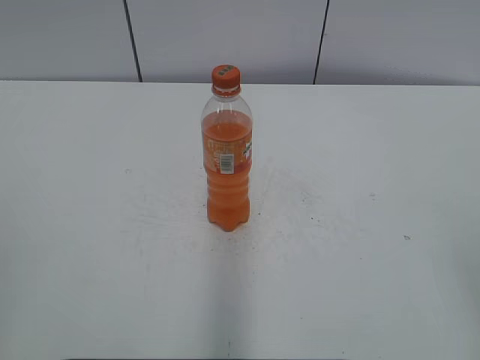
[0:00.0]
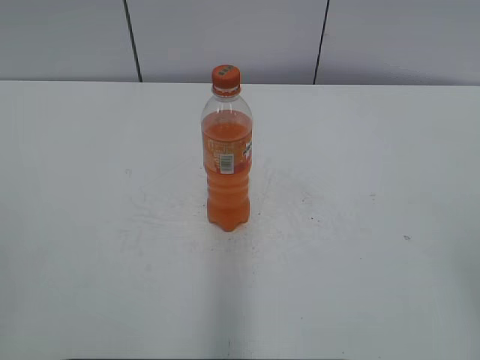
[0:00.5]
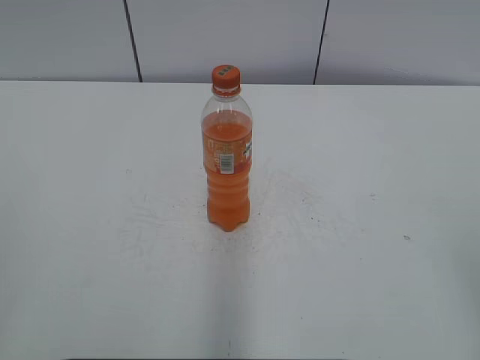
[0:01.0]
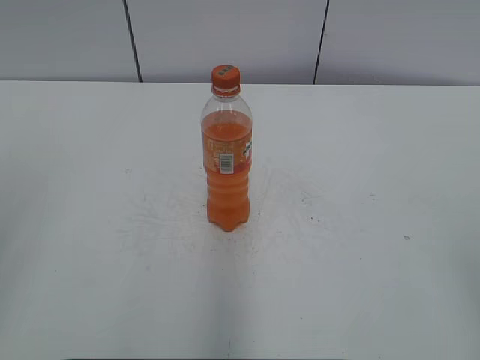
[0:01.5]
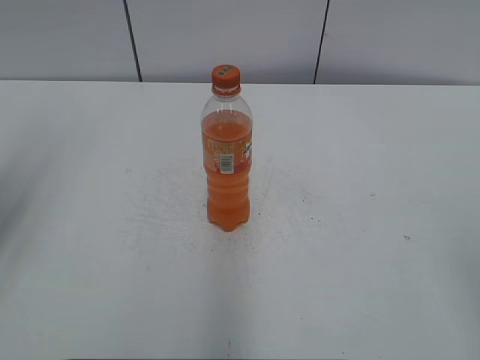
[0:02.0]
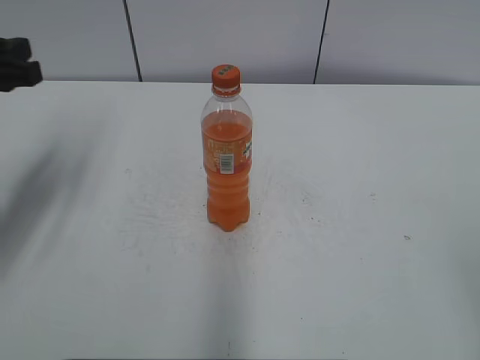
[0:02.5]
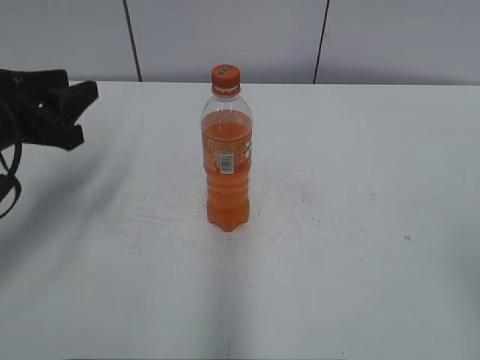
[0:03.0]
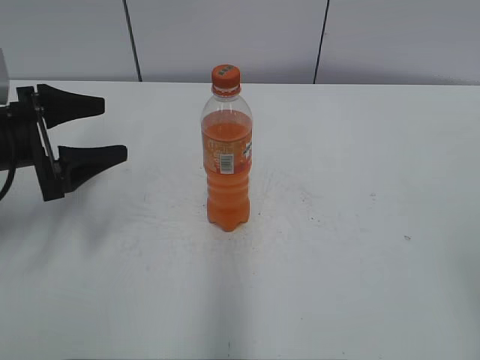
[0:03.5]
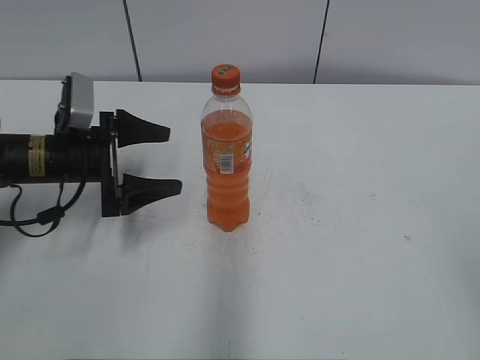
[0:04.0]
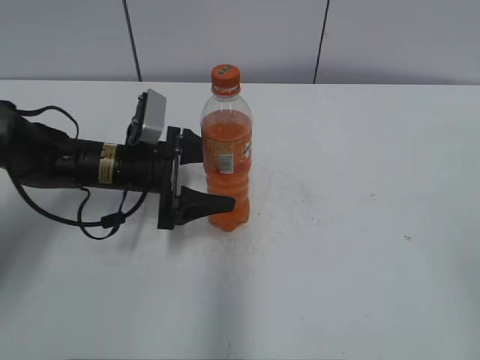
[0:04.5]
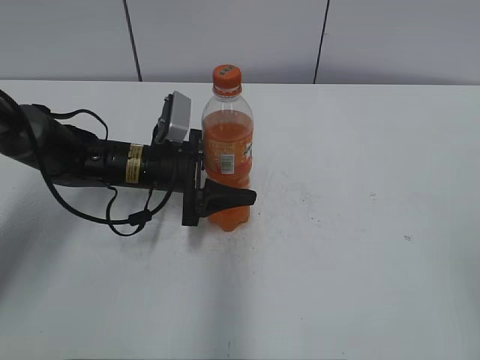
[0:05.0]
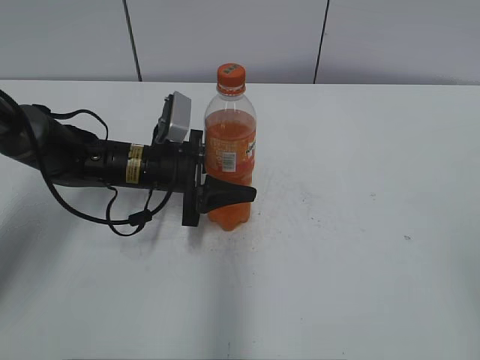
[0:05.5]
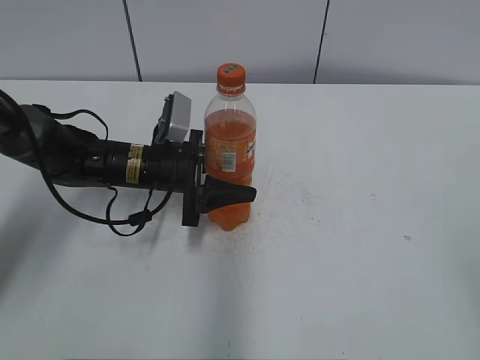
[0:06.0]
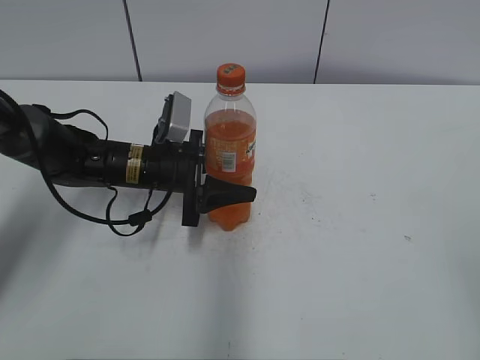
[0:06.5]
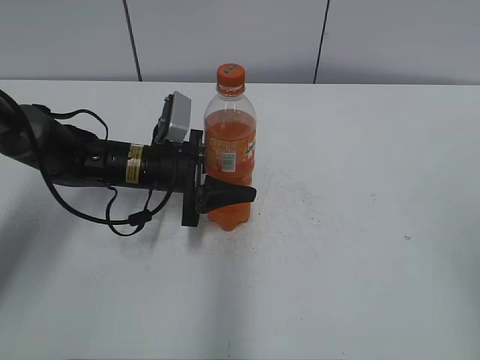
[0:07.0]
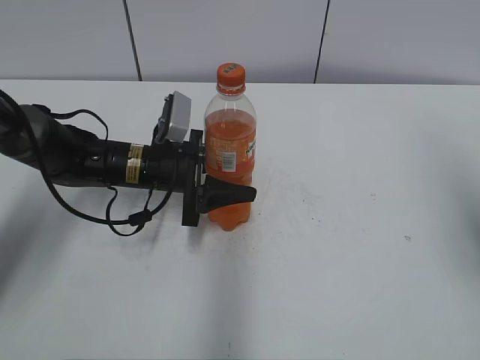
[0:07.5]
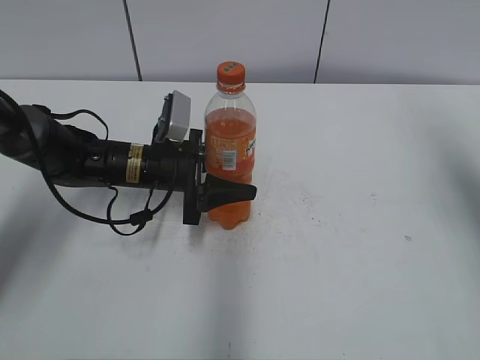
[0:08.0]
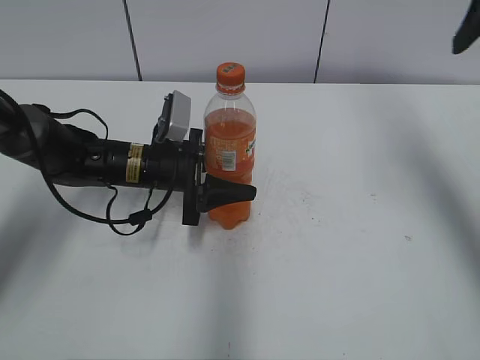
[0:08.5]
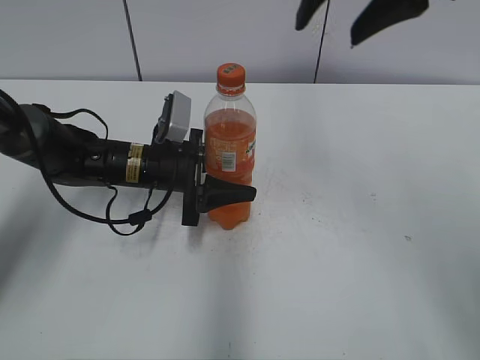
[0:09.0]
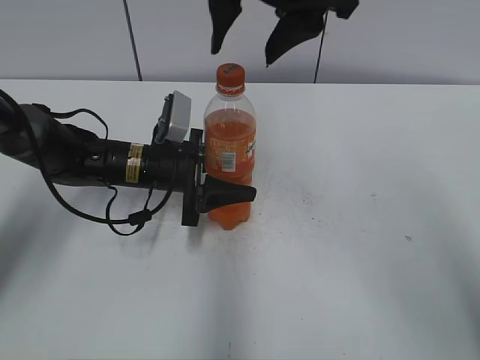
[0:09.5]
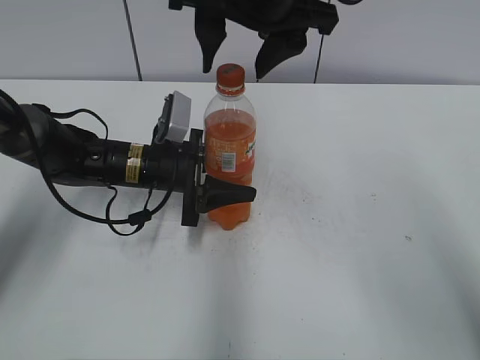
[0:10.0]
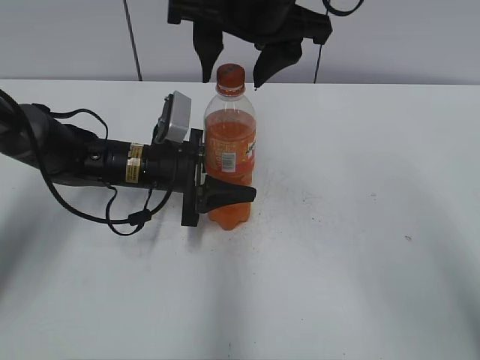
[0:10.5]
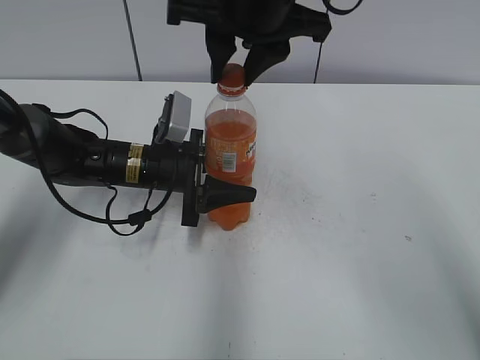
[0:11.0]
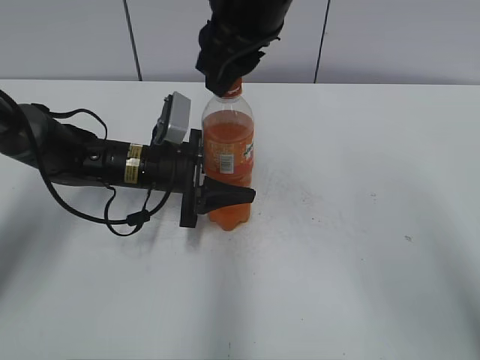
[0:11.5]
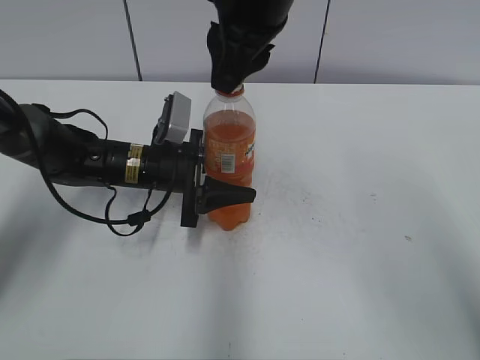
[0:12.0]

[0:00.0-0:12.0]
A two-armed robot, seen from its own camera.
Step, 0:00.0 to 0:05.0: Grab the Mirinda with the left hand.
0:02.0 to 0:04.0: The left gripper travels downward and forward by some 30 cm, and opens its fingers.
0:04.0 to 0:06.0: The left gripper goes some 10 cm to the right, and closes.
0:06.0 to 0:08.0: The right gripper moves forward, some 25 cm.
0:08.0 to 0:10.0: The right gripper shifts roughly 30 cm to the left.
0:10.0 to 0:12.0: The right gripper closes its fingers.

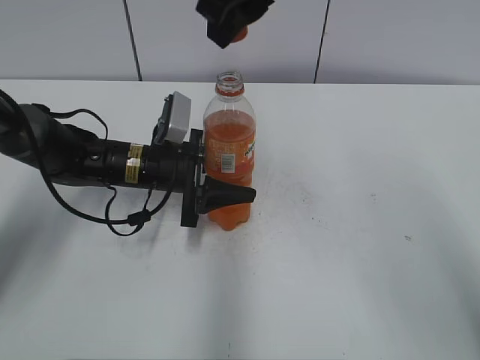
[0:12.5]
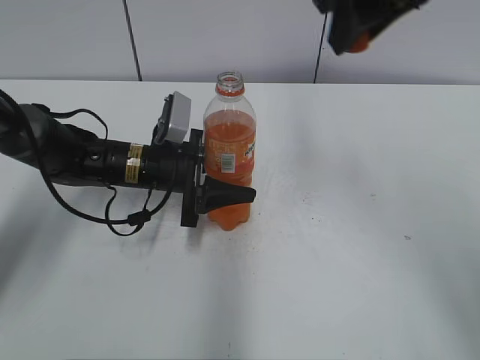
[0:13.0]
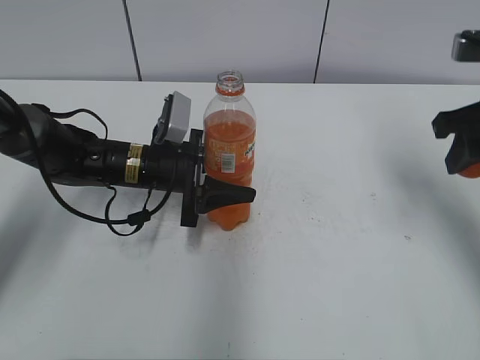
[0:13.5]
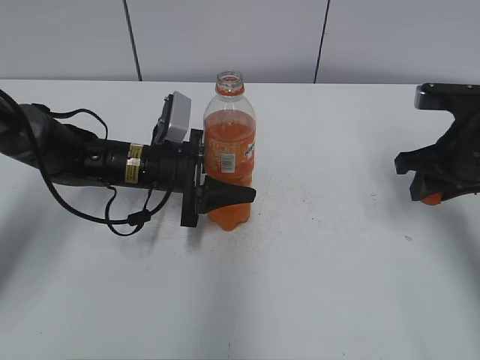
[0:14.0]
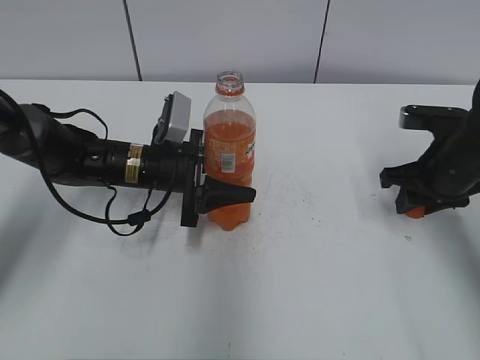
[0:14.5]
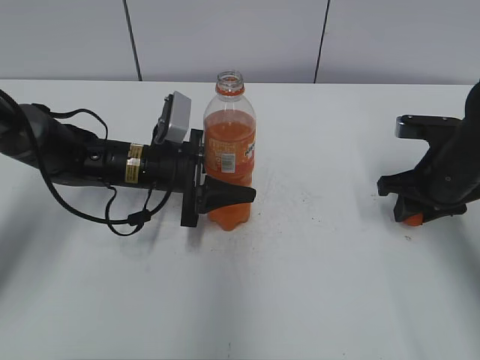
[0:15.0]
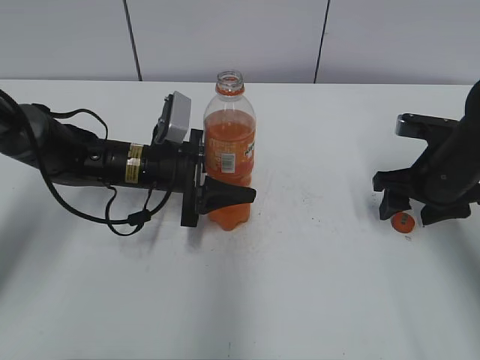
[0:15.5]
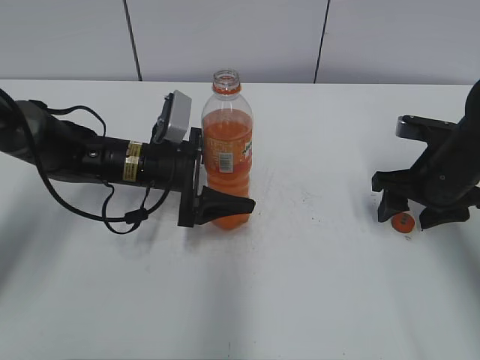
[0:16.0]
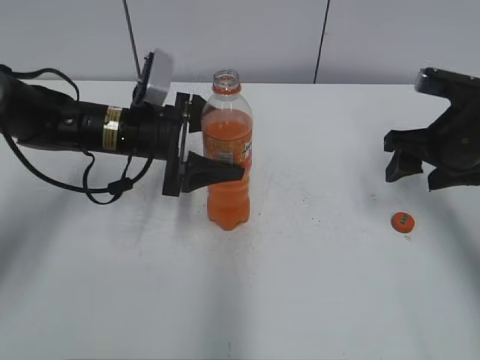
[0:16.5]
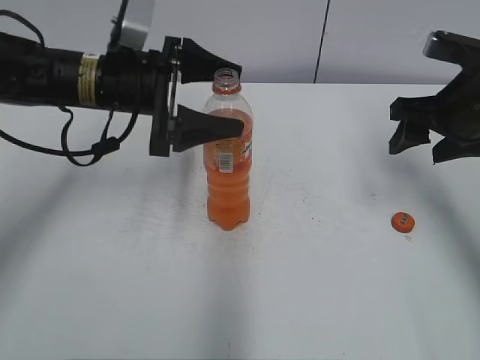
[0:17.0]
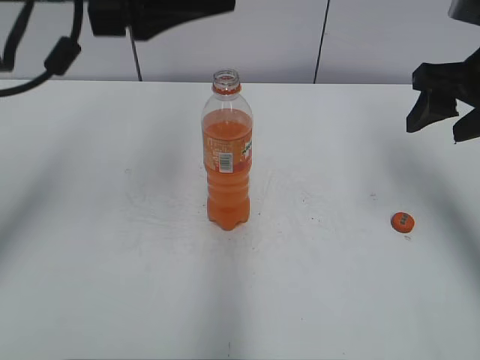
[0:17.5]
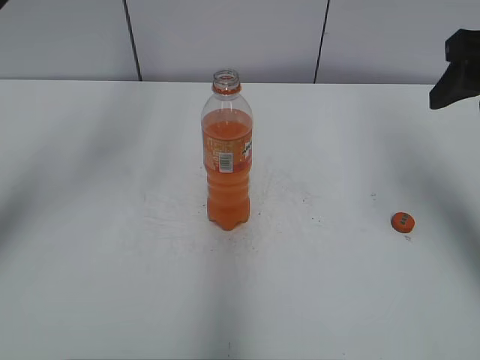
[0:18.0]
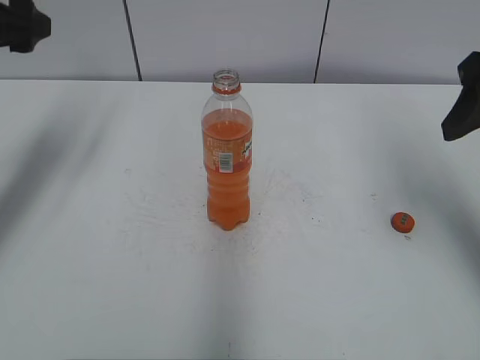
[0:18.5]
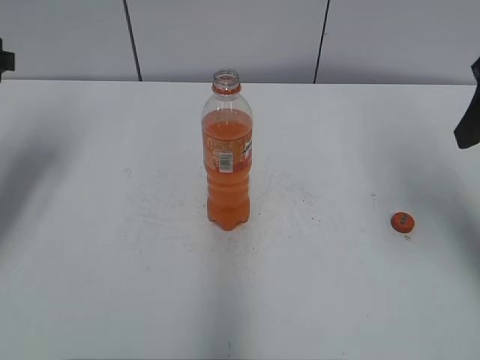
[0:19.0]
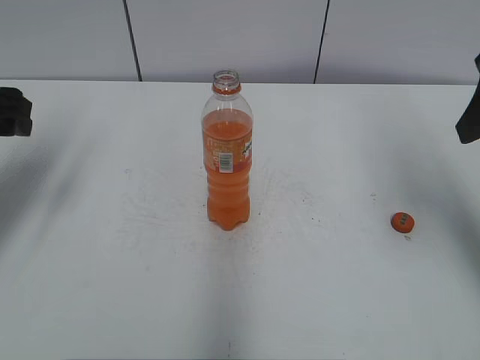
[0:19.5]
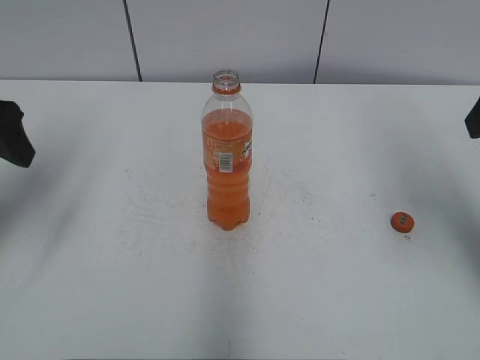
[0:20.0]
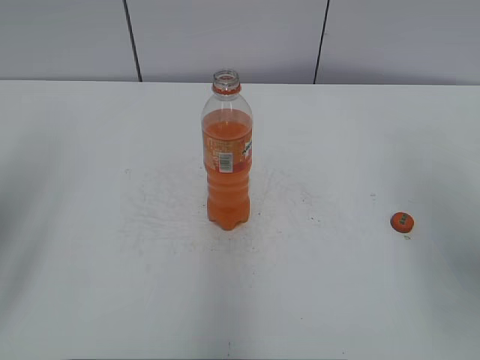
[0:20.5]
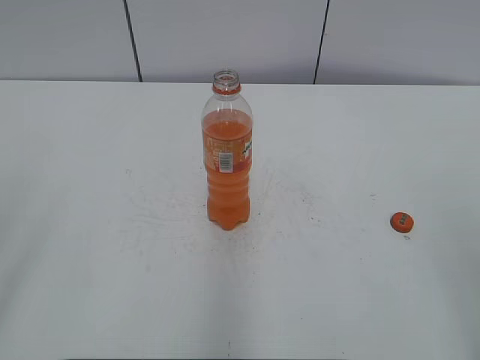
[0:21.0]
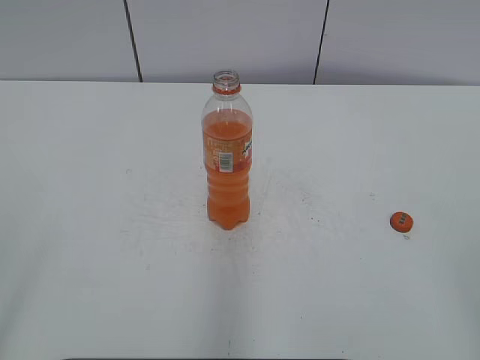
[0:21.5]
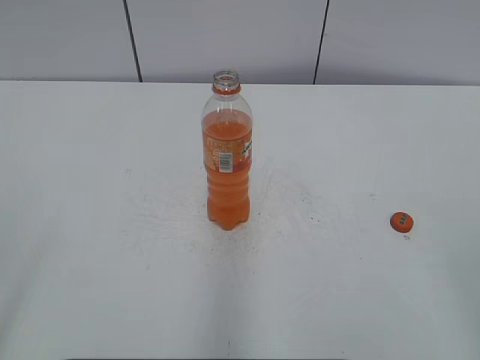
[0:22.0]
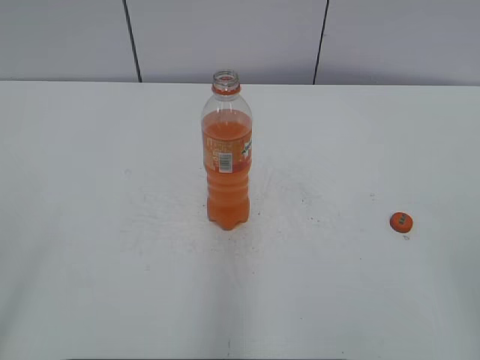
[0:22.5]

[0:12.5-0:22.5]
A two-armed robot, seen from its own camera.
Step, 0:12.5 to 0:15.0: Place the bottle cap on the right.
0:12.5 to 0:14.5: The right gripper moves downward and to the right, roughly 35 cm.
0:14.5 to 0:16.5: The right gripper opens up, while the left gripper shifts by about 5 cm, and opens up.
0:16.5 to 0:18.5: The left gripper travels upward and to the left by roughly 20 cm; the right gripper shifts some 15 cm upward and backward.
0:18.5 to 0:20.5: The grippers both shift backward by approximately 15 cm.
0:20.5 to 0:22.5: The grippers both shift backward by about 15 cm.

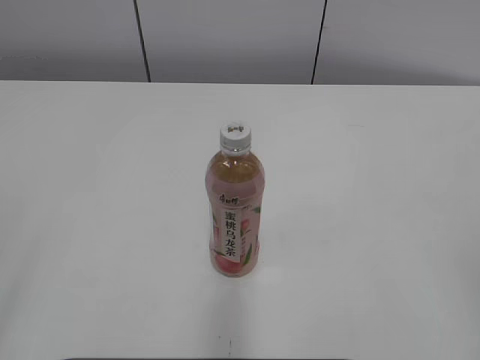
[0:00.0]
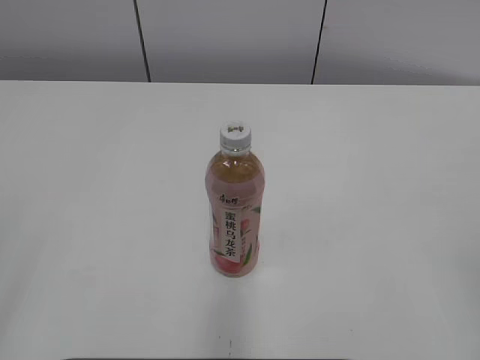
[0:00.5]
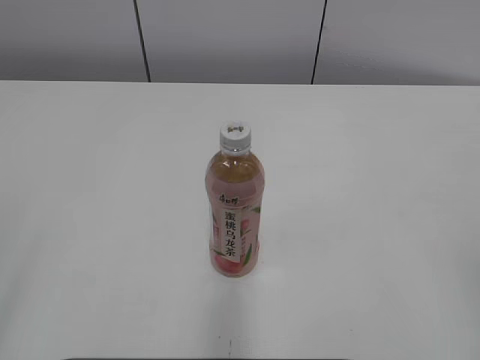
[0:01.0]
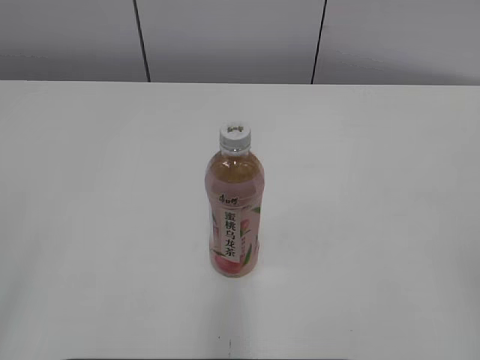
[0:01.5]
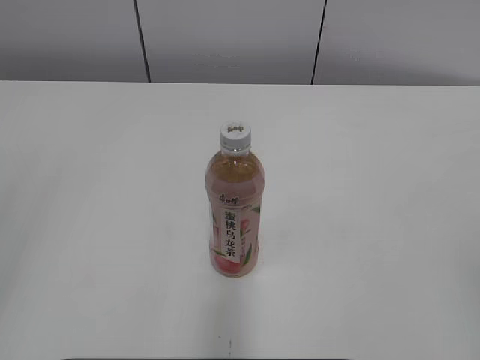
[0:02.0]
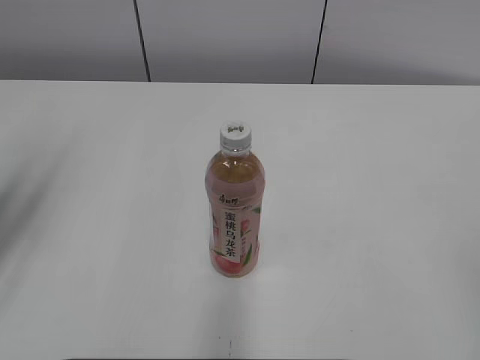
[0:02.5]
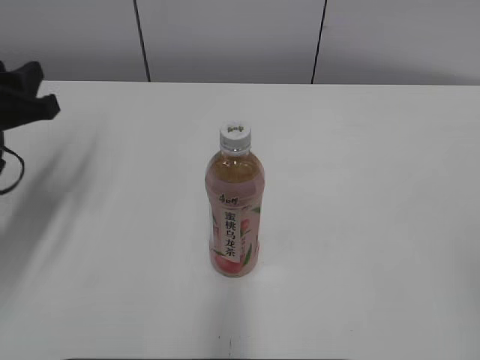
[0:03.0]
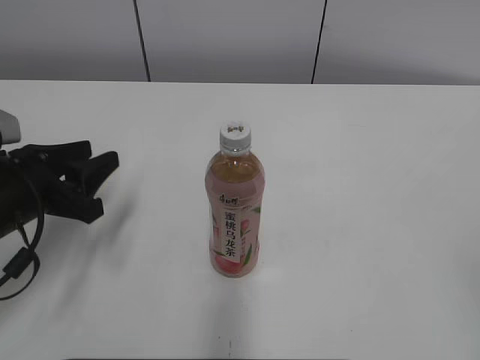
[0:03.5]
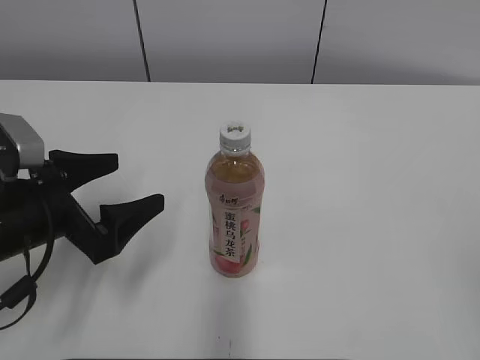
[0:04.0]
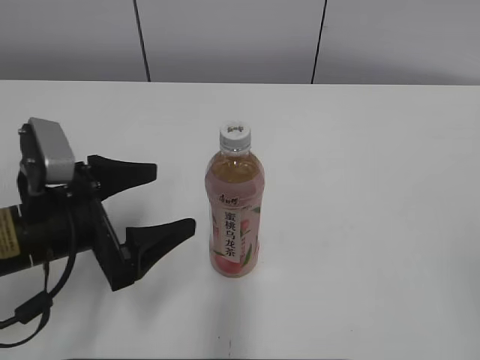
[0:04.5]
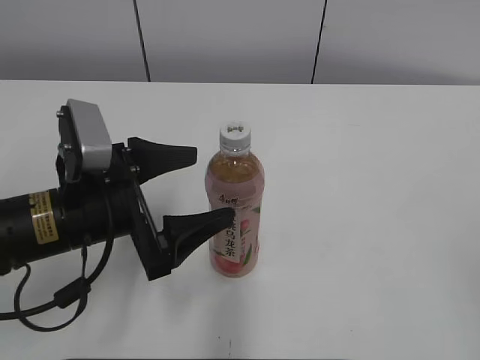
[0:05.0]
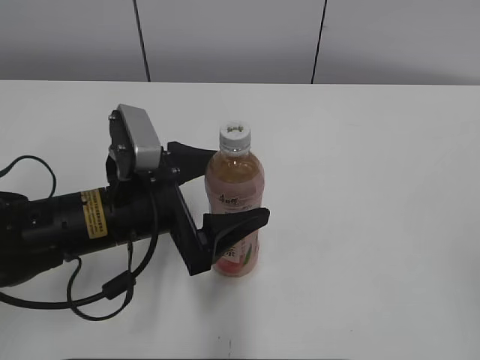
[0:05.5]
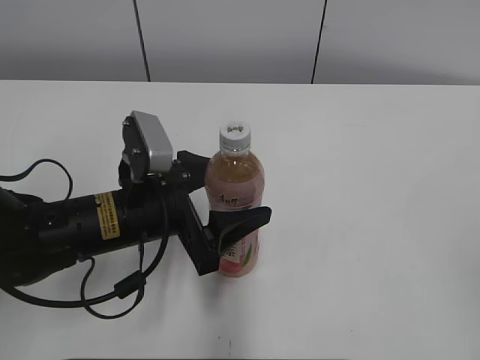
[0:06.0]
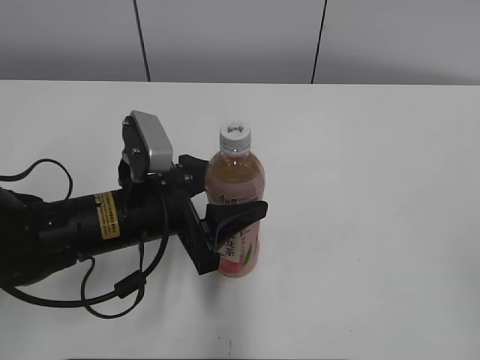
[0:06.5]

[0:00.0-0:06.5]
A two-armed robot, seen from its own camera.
0:02.0 to 0:04.5: The left gripper is displaced downward, forward and to the right by approximately 30 cm, and opens its fingers.
0:04.5 to 0:06.5: The left gripper goes about 10 cm to the right, and closes up.
